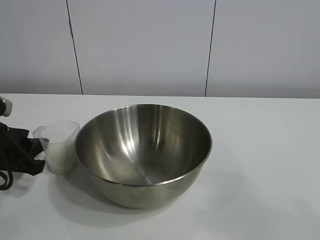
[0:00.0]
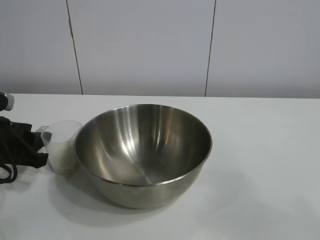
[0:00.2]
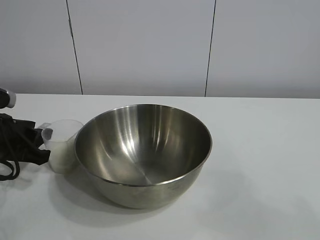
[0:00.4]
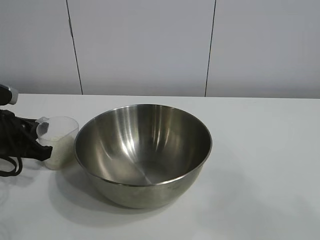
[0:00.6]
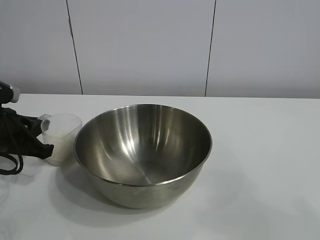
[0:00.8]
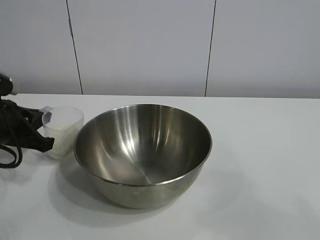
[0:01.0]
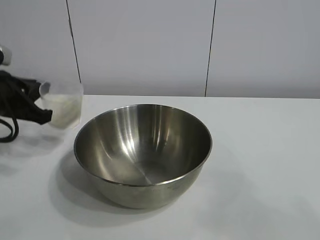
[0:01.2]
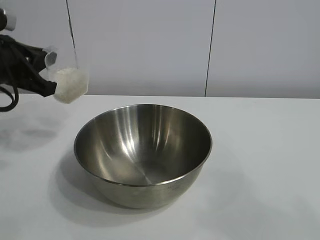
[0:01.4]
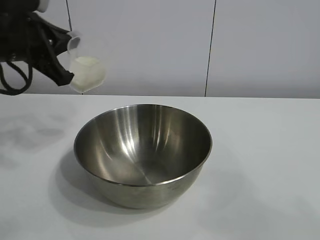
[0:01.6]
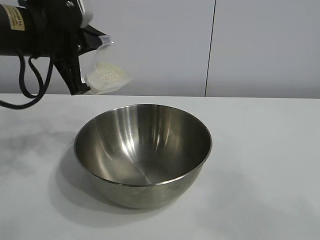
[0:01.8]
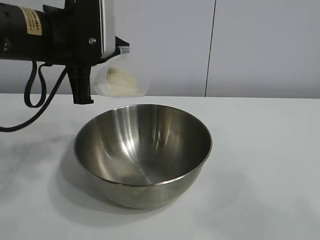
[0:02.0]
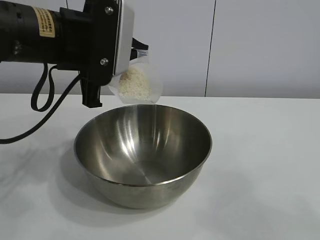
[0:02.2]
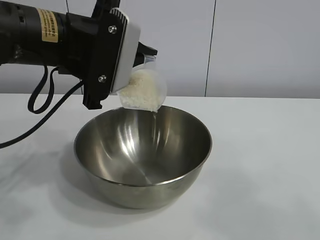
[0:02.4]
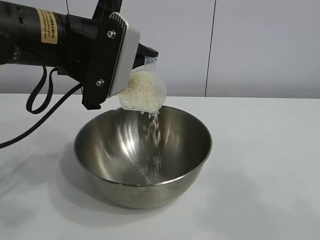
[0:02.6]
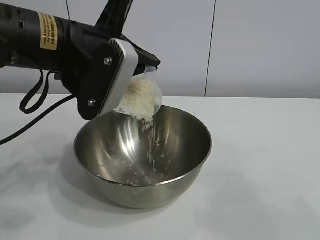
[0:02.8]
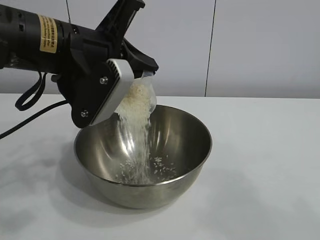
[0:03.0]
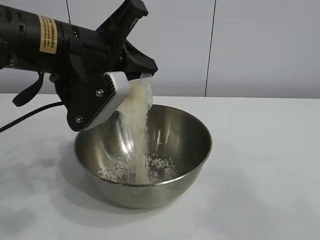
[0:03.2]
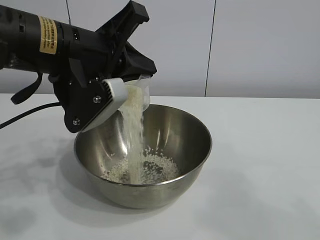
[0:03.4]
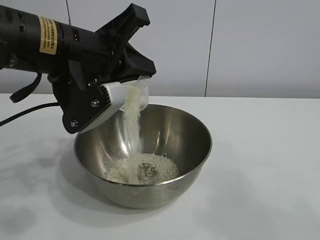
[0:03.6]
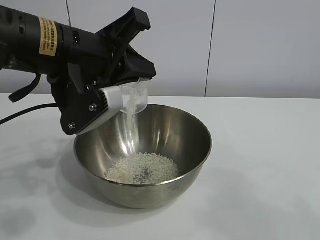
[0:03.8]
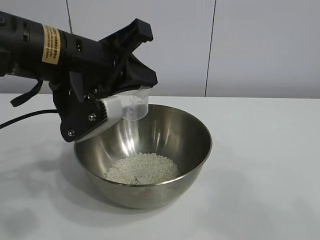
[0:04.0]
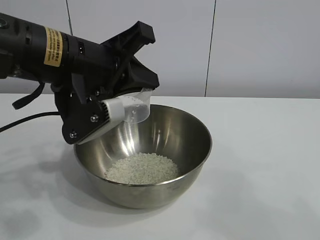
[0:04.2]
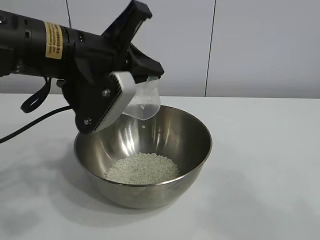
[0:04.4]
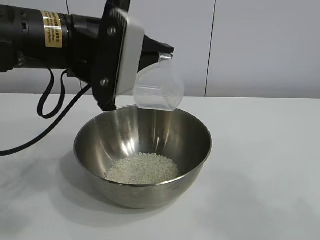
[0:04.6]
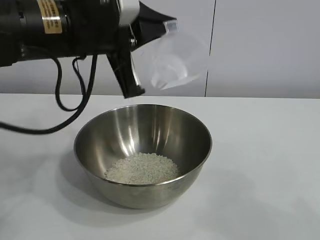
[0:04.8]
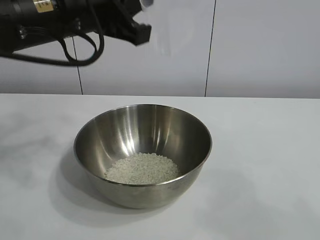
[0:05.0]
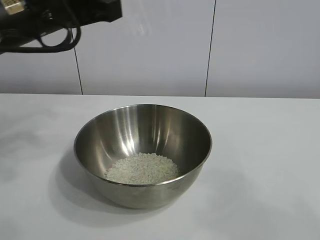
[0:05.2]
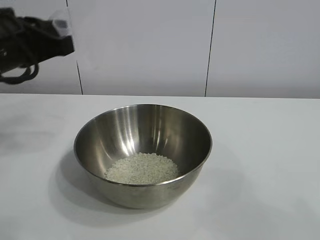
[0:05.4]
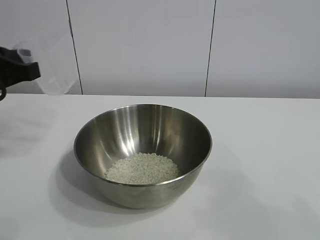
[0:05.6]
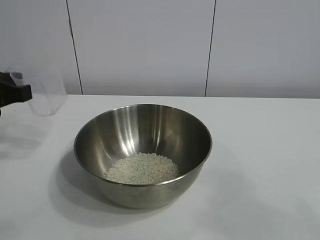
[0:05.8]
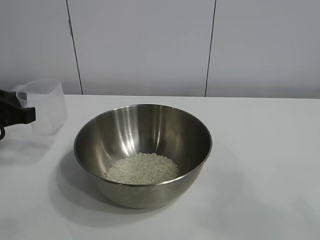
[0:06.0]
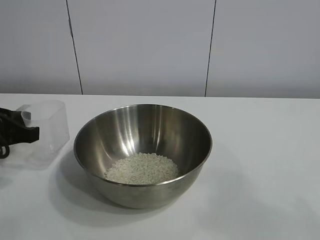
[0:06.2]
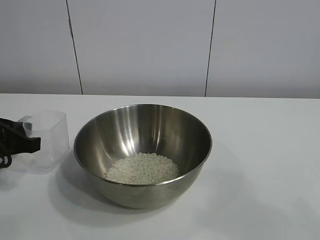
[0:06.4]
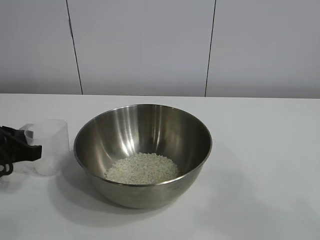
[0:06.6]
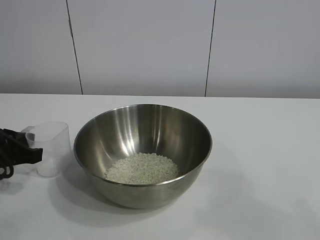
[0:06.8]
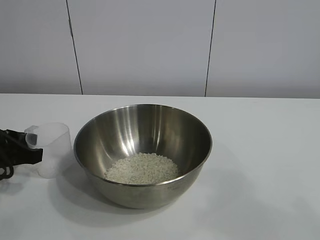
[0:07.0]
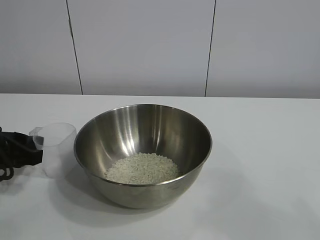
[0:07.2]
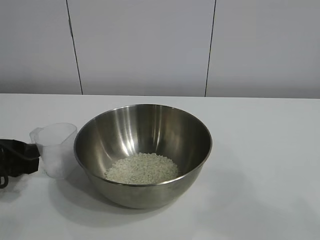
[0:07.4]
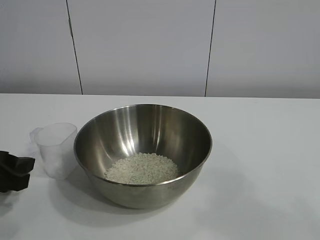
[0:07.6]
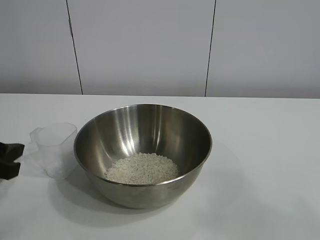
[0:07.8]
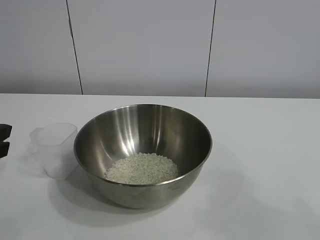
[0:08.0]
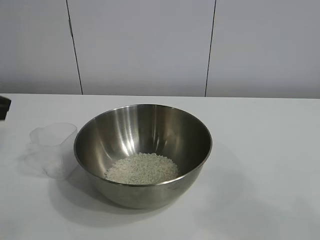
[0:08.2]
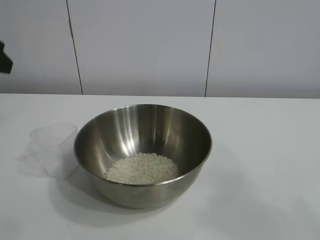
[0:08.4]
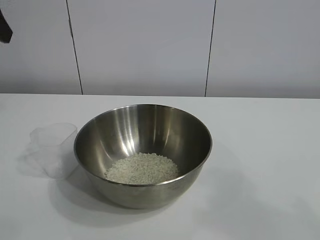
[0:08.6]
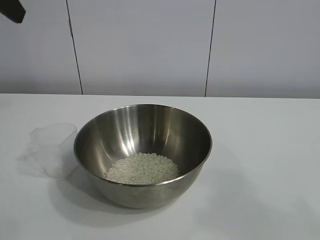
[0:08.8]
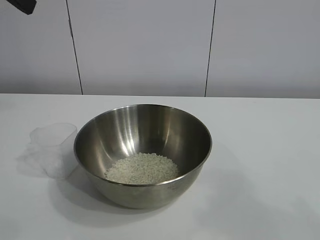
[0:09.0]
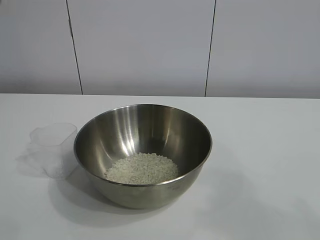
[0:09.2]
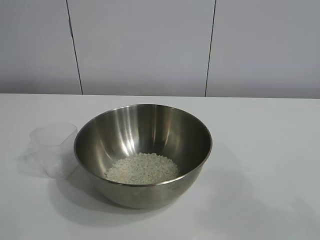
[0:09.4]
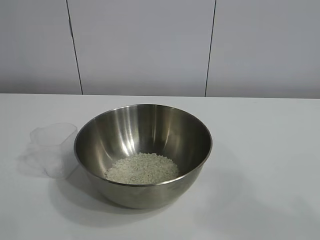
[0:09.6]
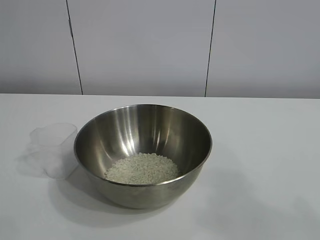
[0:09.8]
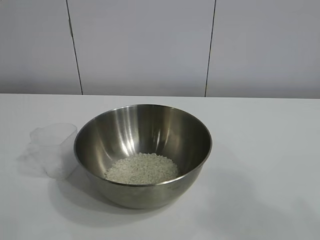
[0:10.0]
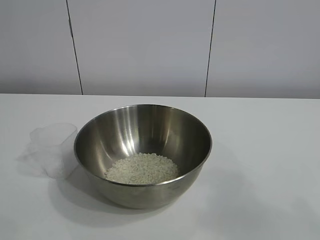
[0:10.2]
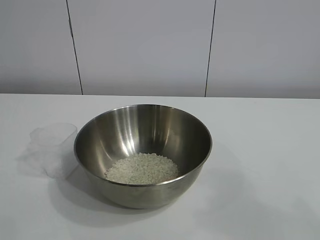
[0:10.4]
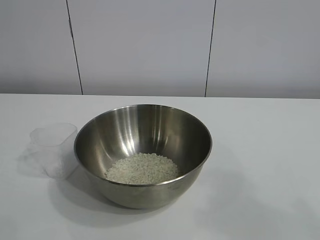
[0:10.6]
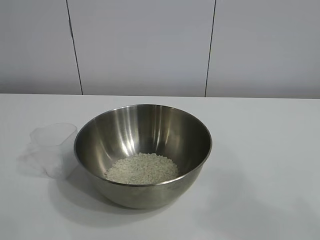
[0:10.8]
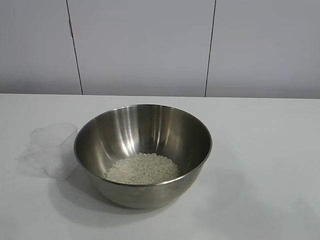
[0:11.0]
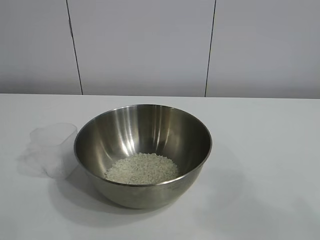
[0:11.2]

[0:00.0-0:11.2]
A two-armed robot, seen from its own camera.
Task of the whole recording: the right gripper grasp the rice container and place it in the center of the table, the left gripper grasp the rice scoop and pour the rice into the rice container.
Step, 0:00.8 to 0:03.8: Pour the rice from the cup into the bowl with the left gripper.
Step, 0:04.0 to 0:07.2: Place the cup on the table with the left gripper.

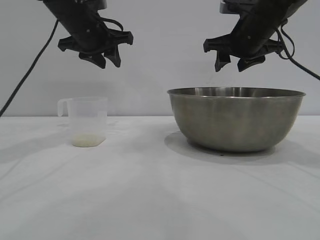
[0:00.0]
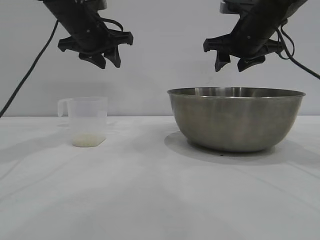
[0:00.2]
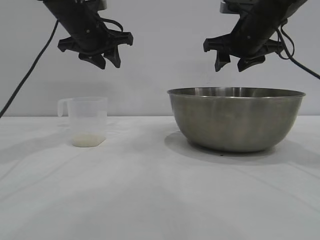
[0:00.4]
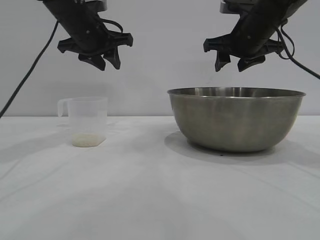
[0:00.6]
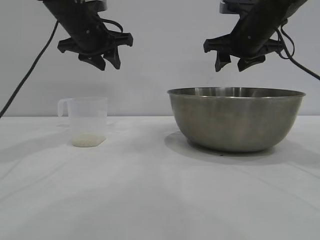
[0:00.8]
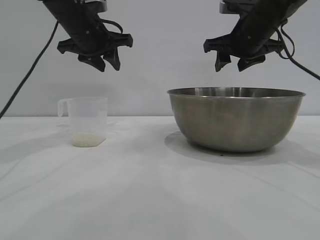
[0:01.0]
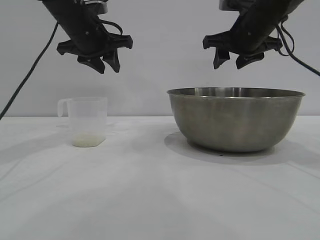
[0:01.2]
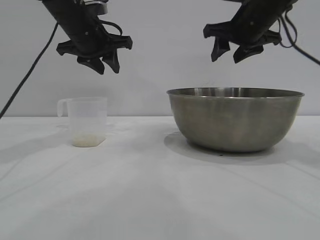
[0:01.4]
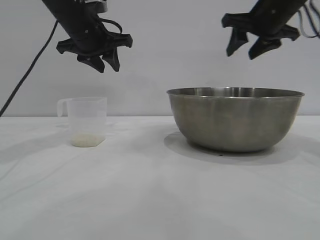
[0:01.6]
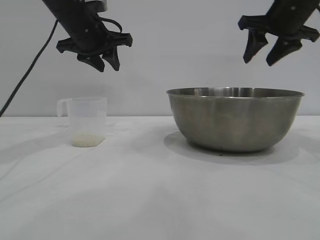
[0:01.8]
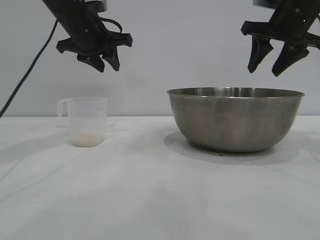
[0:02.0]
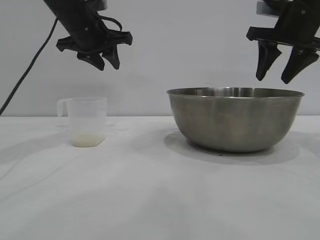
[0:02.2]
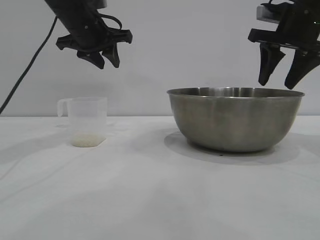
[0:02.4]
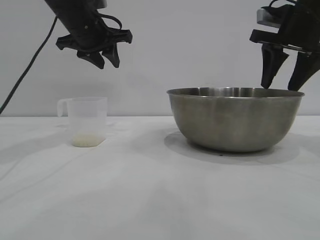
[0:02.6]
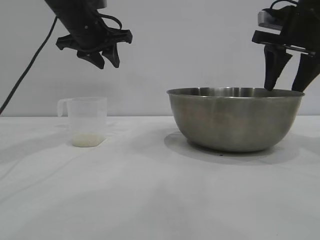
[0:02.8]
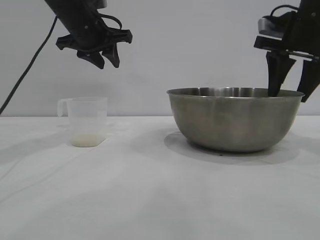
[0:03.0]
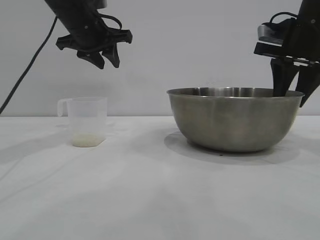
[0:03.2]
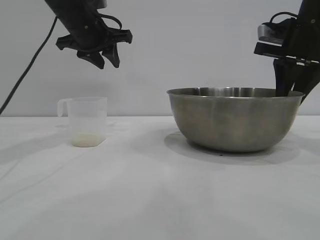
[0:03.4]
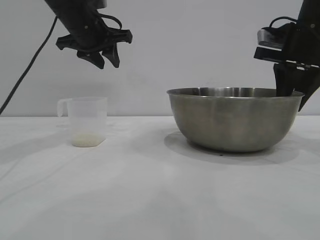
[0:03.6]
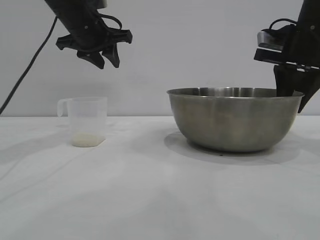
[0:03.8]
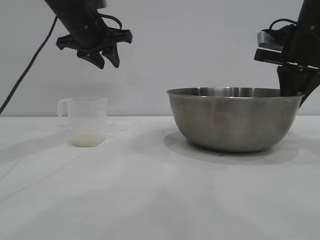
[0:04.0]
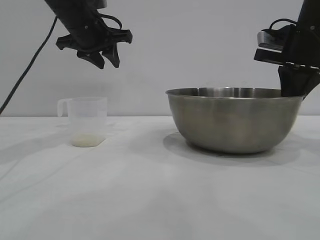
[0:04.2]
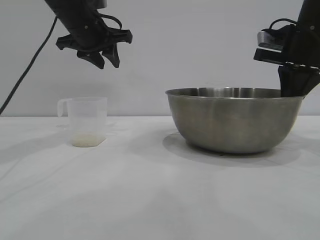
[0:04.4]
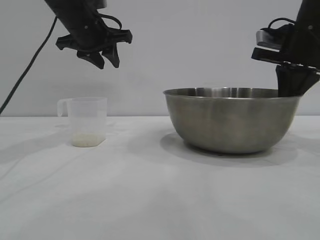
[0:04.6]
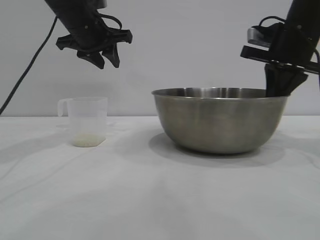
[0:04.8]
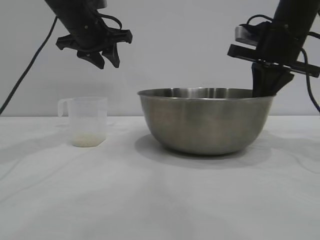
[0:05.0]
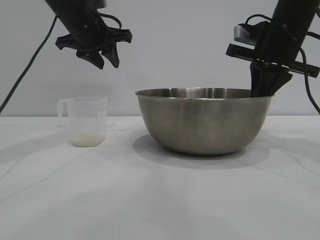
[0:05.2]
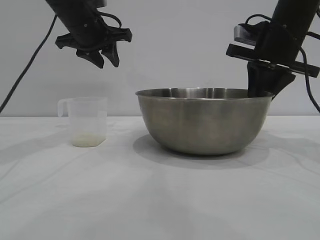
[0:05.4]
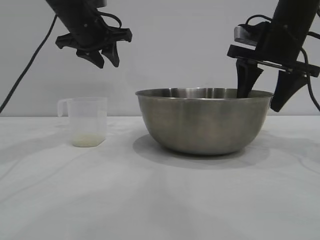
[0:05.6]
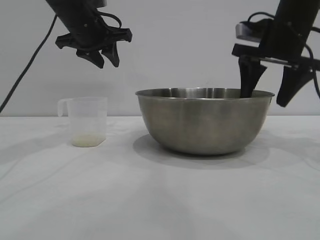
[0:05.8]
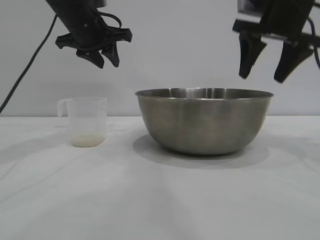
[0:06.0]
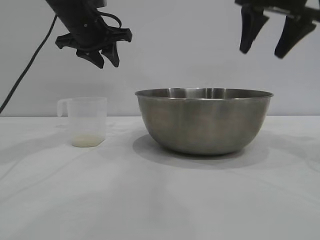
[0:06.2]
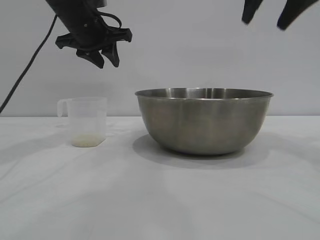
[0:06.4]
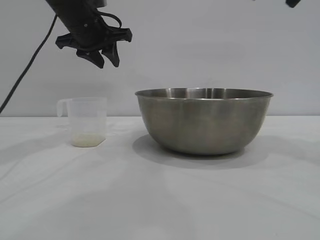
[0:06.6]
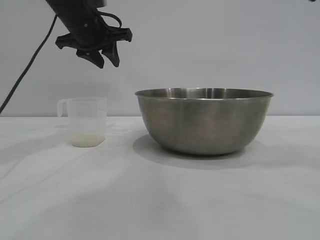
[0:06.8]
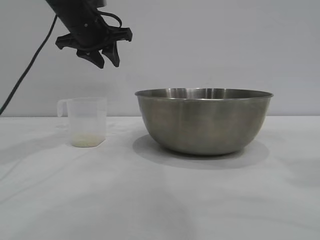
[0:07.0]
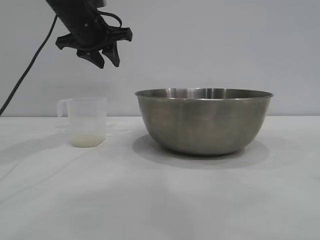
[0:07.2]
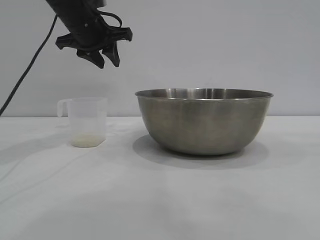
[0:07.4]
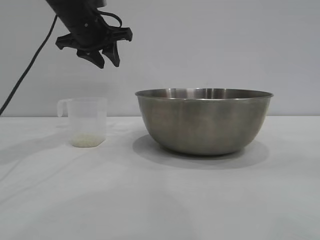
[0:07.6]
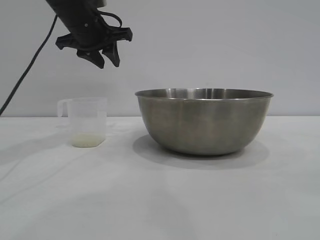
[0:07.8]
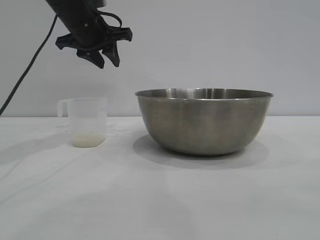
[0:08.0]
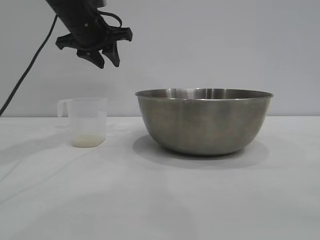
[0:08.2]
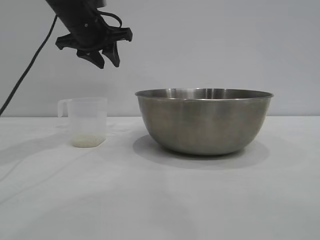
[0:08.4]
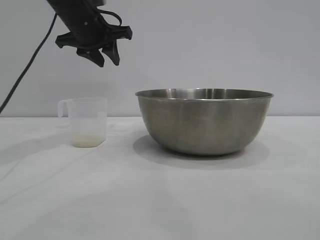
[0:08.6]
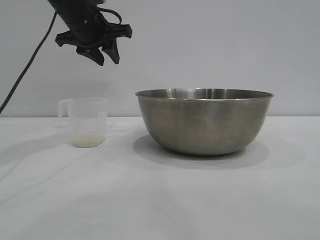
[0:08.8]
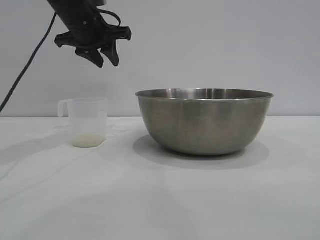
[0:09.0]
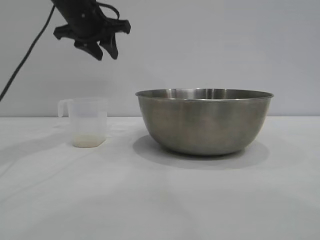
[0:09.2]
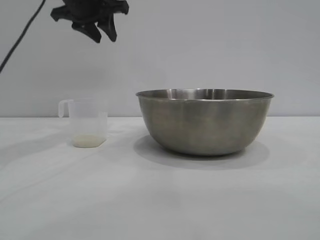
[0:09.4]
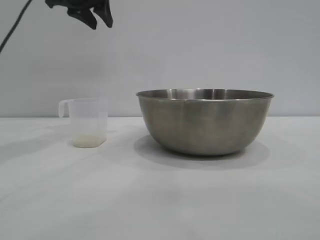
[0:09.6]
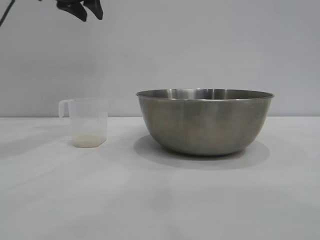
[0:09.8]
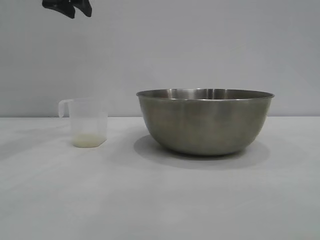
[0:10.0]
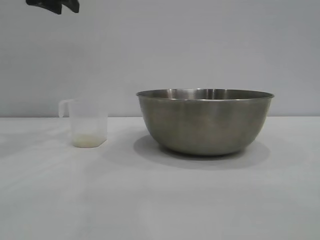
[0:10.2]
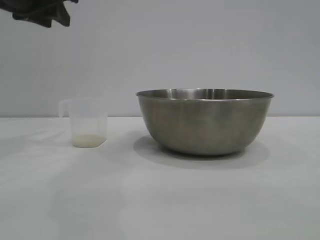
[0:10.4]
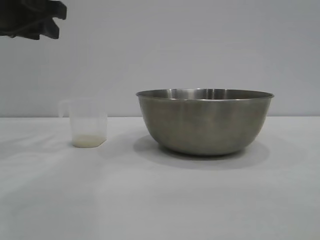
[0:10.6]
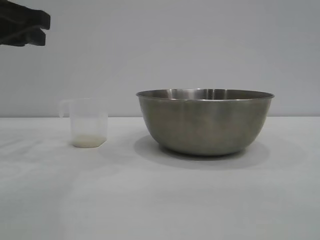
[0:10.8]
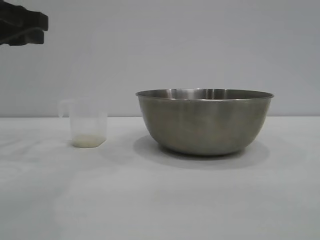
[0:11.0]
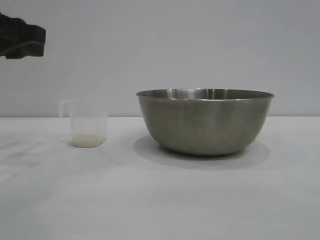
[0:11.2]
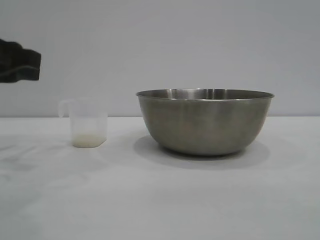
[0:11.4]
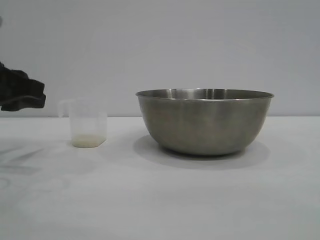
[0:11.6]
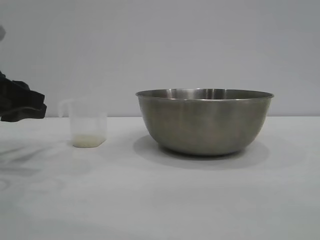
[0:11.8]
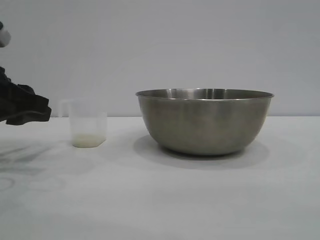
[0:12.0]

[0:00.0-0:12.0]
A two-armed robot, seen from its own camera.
Task of the whole recording: the right gripper grasp the rice container and place it in the center of the table, the left gripper grasp the rice scoop and pour the rice into the rice container.
Step, 0:00.0 to 0:06.0: Move the bowl to the center of view with the right gripper.
